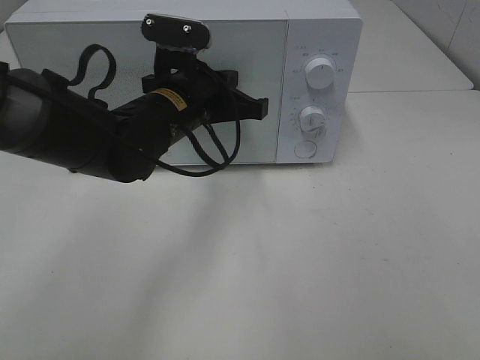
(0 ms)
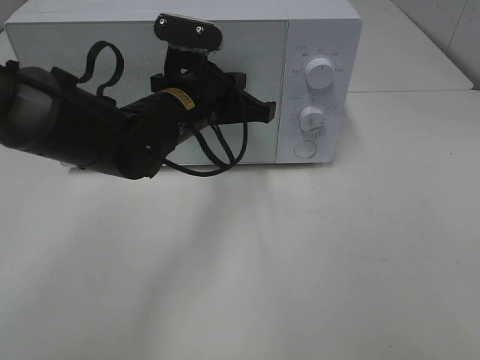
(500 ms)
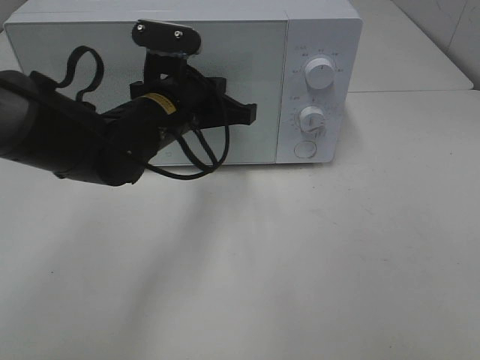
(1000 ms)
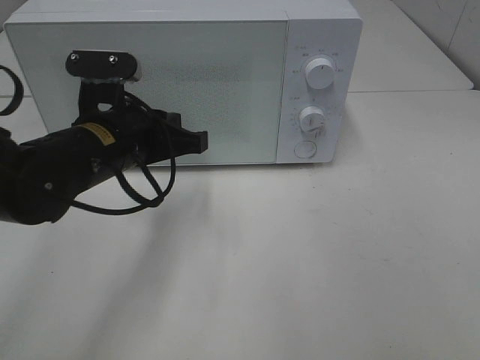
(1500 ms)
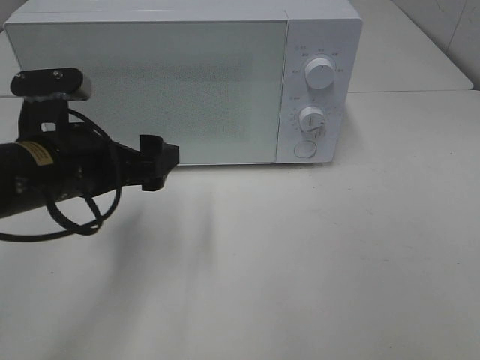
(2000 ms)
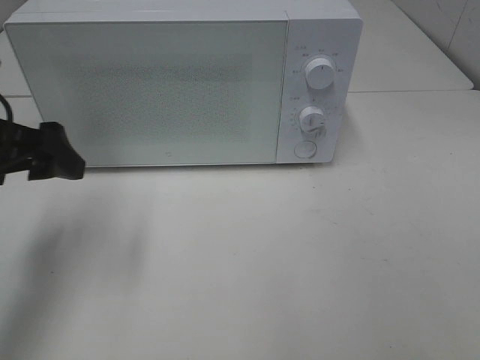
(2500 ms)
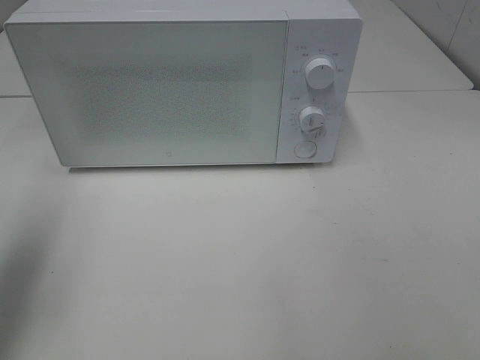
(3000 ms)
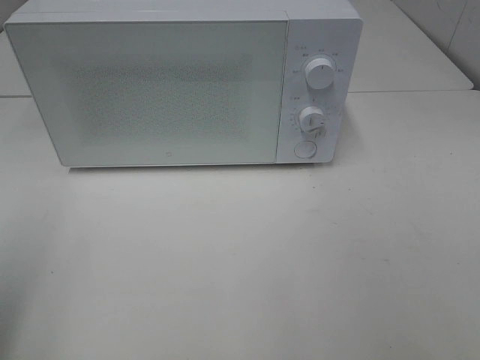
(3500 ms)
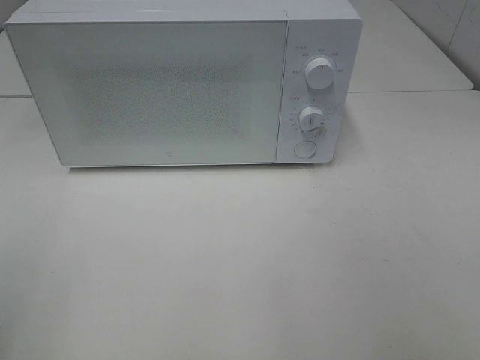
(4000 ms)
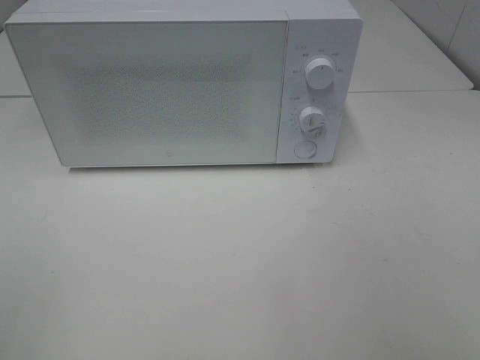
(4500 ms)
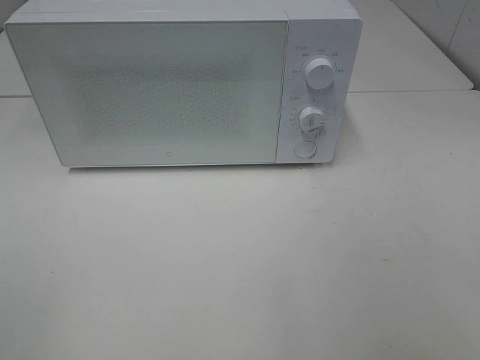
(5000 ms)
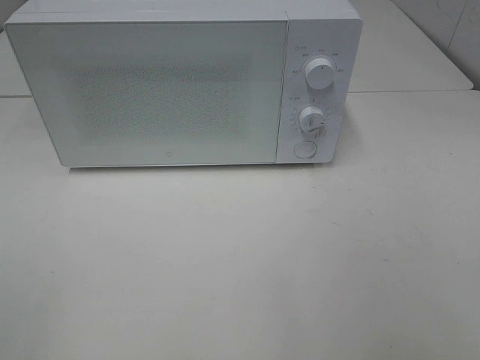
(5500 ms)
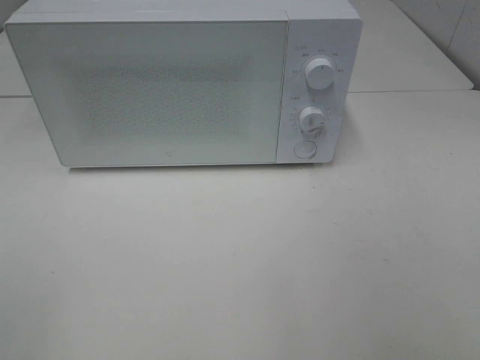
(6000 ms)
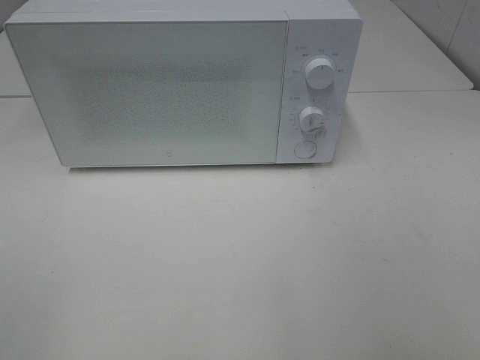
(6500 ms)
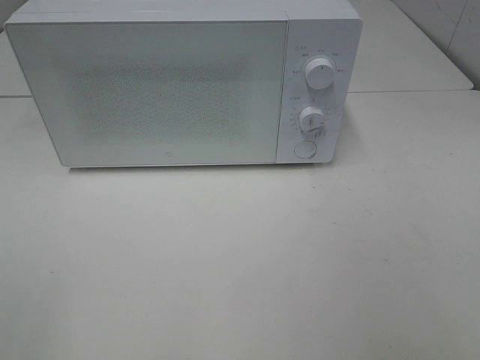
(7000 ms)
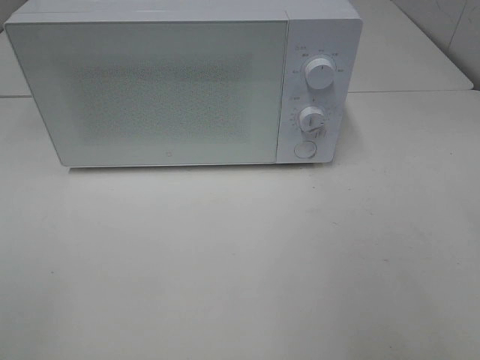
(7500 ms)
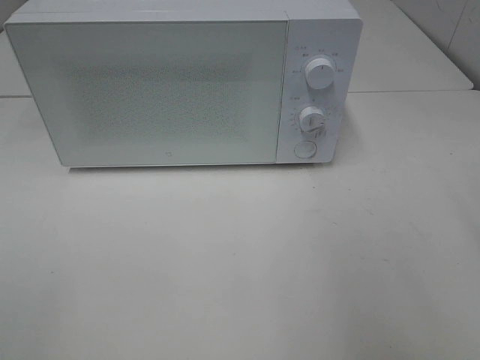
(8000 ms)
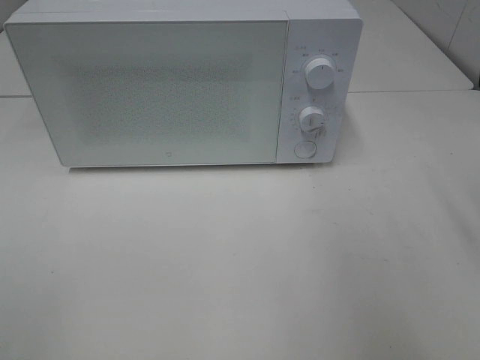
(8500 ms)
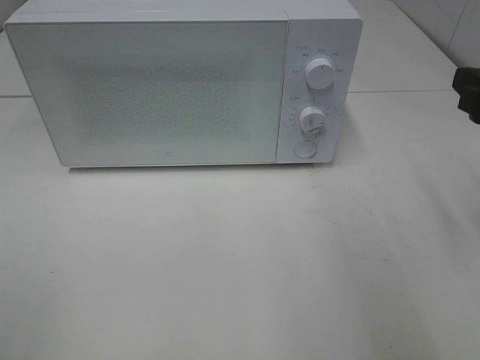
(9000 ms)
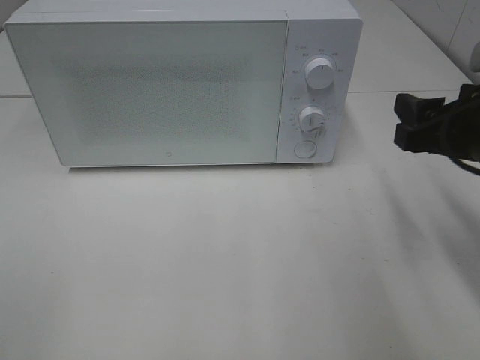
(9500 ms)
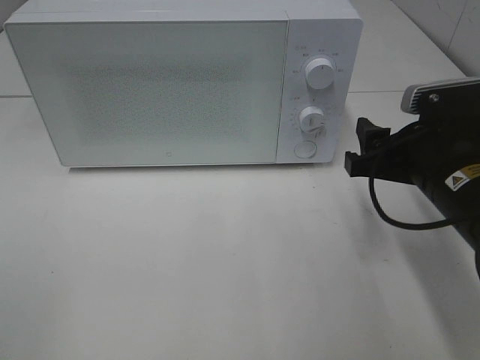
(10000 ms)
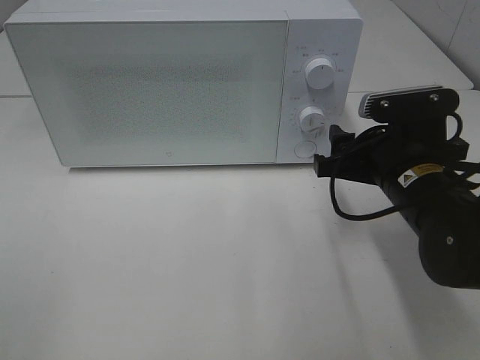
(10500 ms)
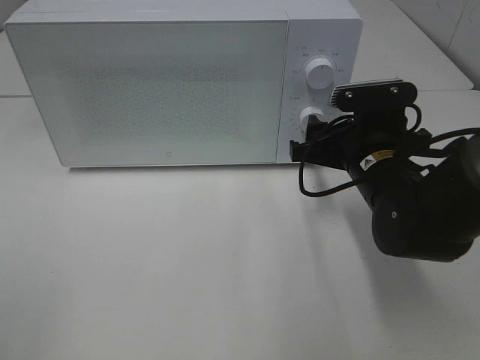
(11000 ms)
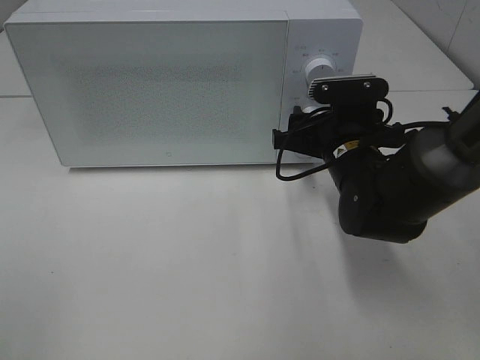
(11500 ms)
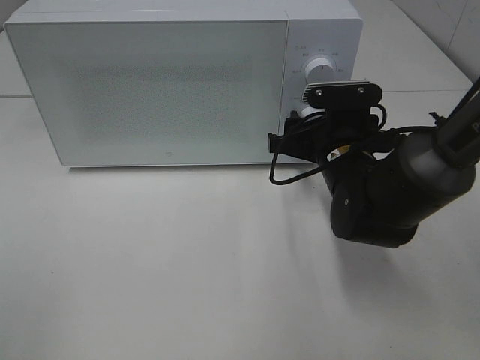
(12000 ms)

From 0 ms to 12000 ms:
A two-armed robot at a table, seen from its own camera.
Task of the whole recording: Heat Sandwich.
From 0 ms to 2000 ms: The left gripper moves to the left and backward, about 15 cm, and opens its fingers.
From 2000 ms to 4000 ms: The left gripper is displaced backward, to the left and upward by approximately 25 cm.
From 8000 ms to 10000 ms: The right gripper is displaced downward, forward and to the left by about 20 cm.
From 10000 ms to 12000 ms: The right gripper is displaced forward, to the left and downward by about 15 cm.

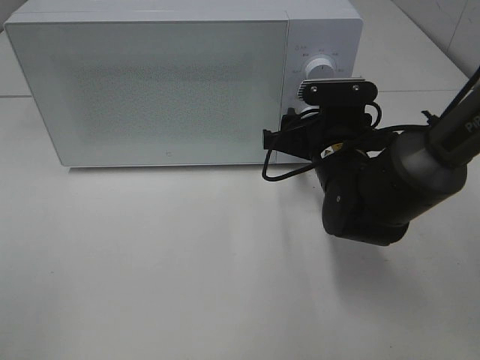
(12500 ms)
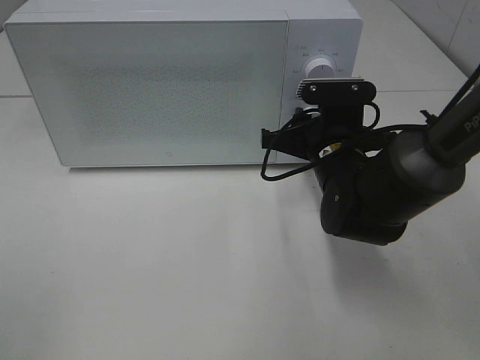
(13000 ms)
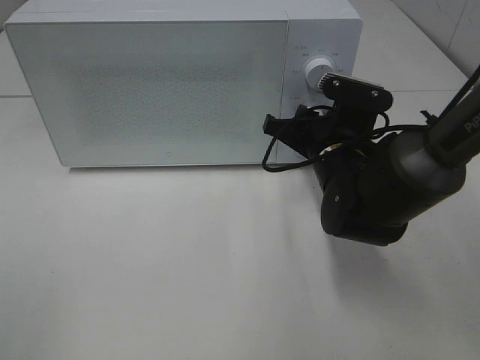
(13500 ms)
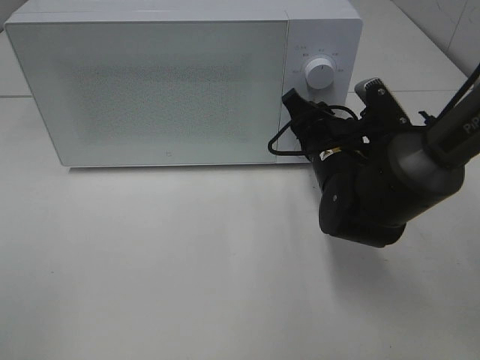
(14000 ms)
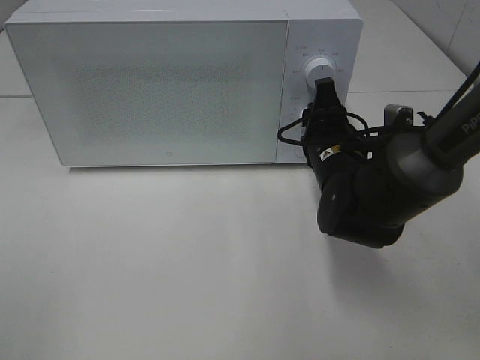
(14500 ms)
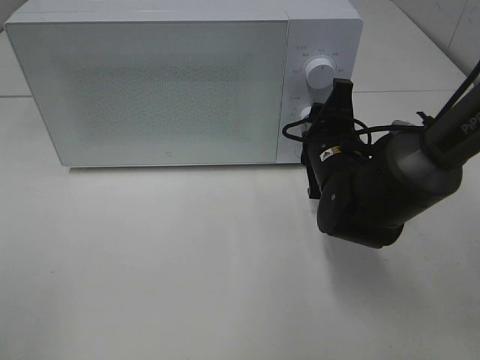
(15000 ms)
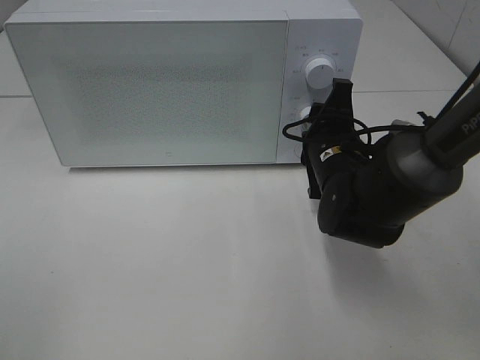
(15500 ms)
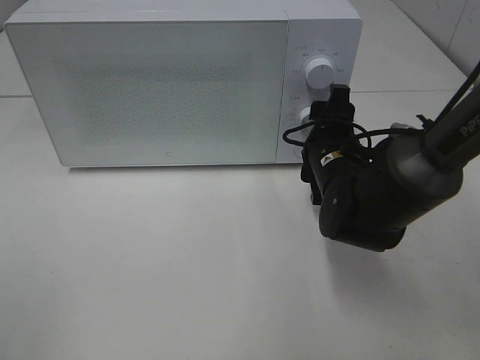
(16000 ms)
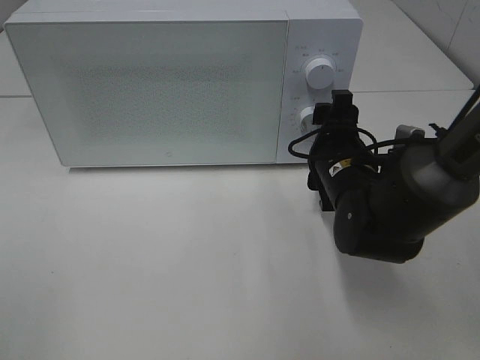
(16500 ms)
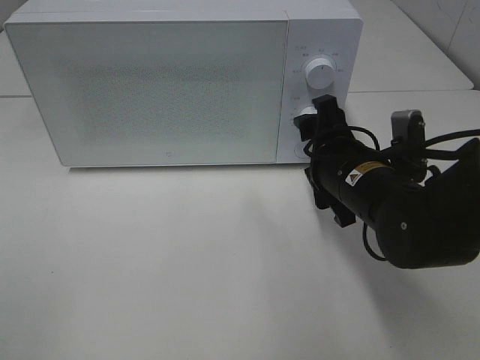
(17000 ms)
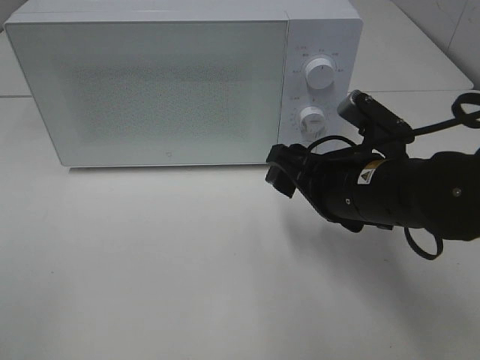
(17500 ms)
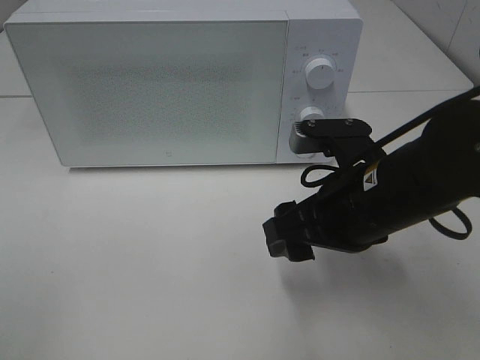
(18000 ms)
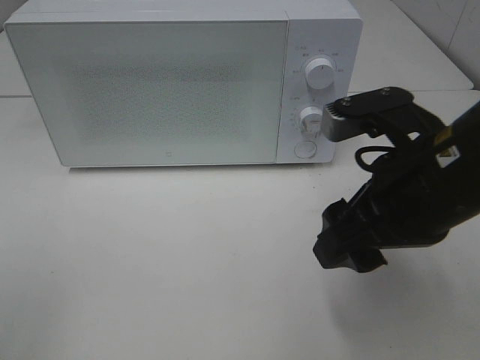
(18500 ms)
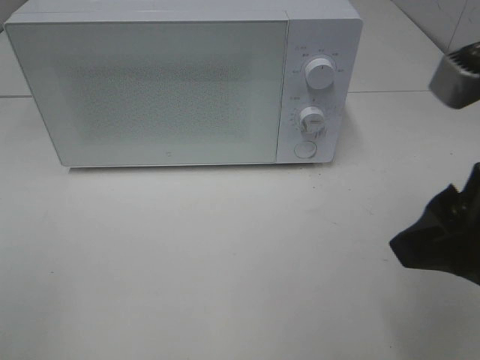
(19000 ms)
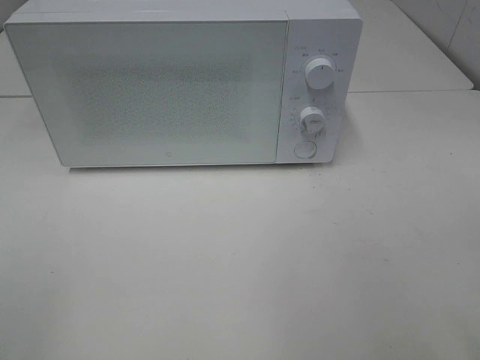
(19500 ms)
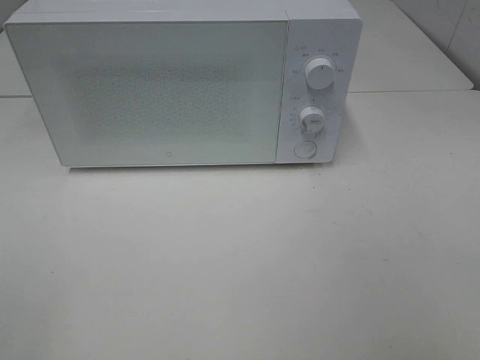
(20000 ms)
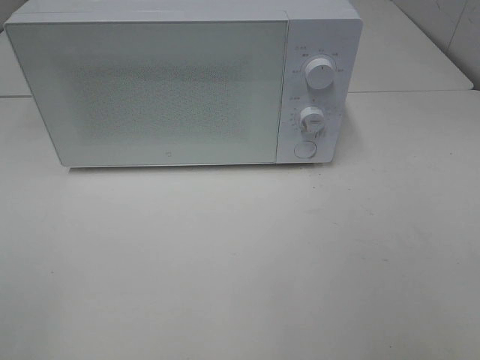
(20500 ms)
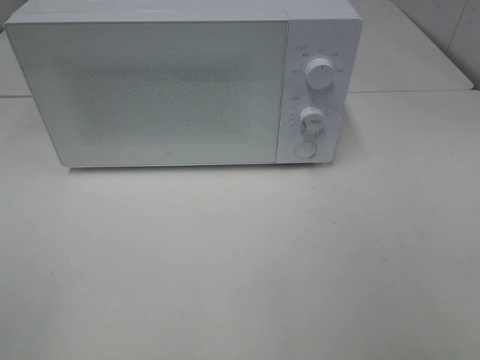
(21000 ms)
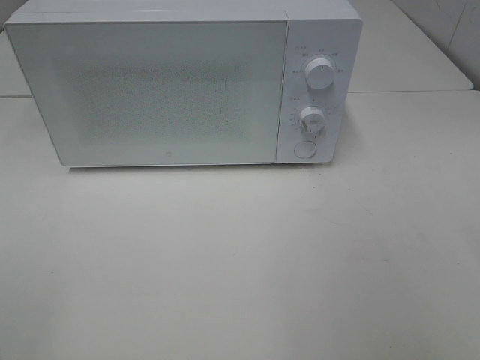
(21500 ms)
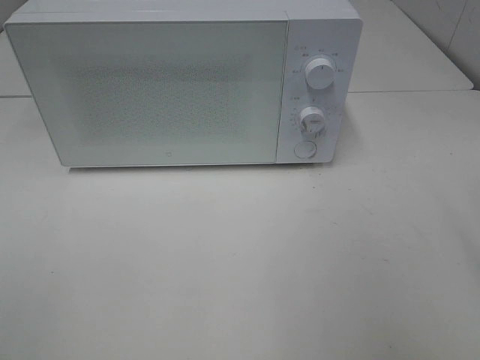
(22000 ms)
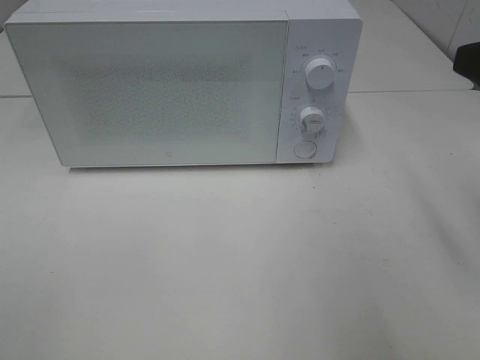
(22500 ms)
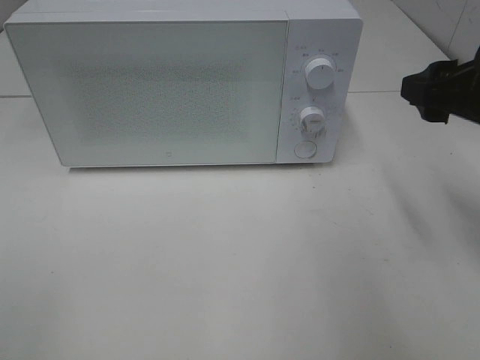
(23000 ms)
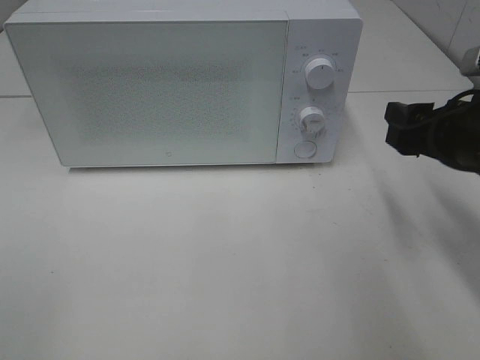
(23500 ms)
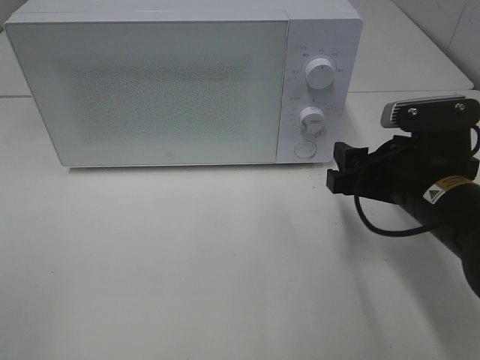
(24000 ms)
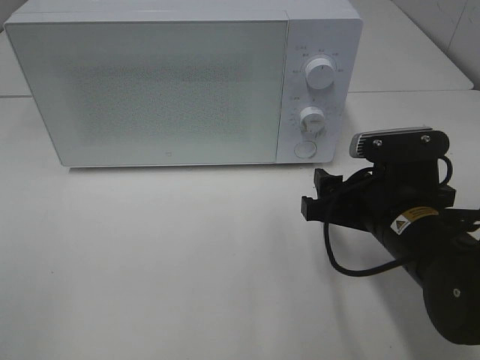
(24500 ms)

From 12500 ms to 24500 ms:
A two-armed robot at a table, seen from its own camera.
Task of the whole recording: Heat Sandwich.
Step, from 12500 ms to 16500 ms: Right hand: twist timer button.
From 14500 ms to 16500 ms: The right gripper opens.
From 16500 ms to 18500 ms: The right gripper travels upward and backward by some 15 cm.
From 18500 ms to 20500 ms: The right gripper heads backward and to the right, covering approximately 25 cm.
From 22500 ms to 24500 ms: The right gripper moves downward and to the left, some 20 cm.

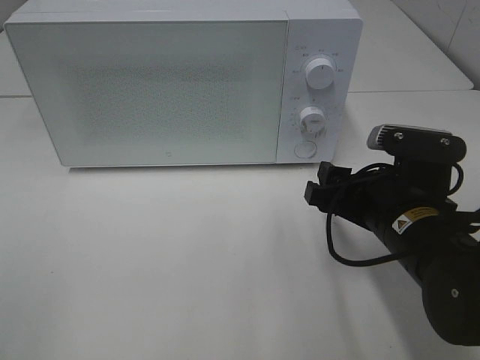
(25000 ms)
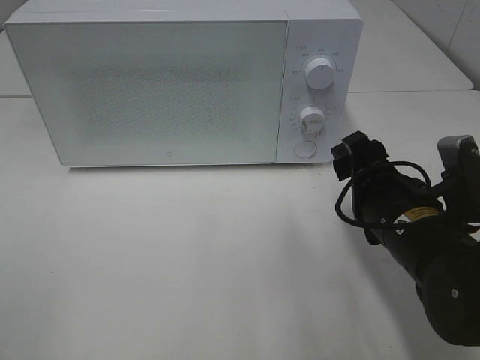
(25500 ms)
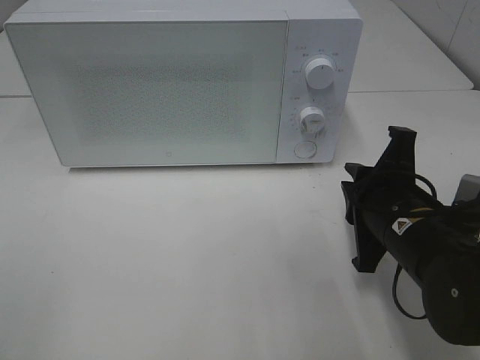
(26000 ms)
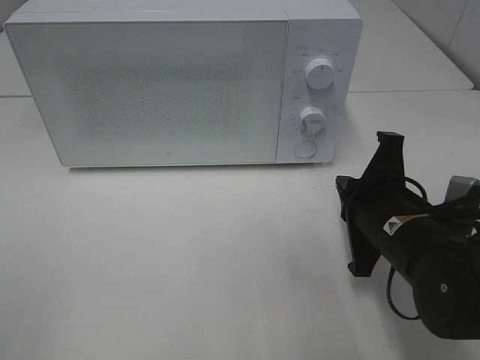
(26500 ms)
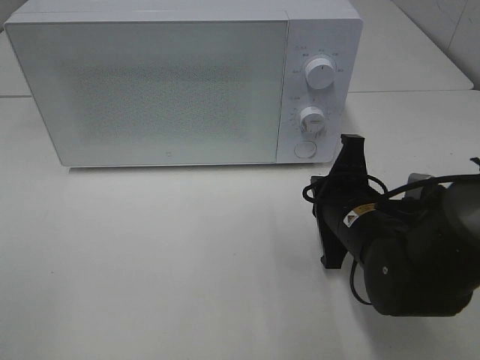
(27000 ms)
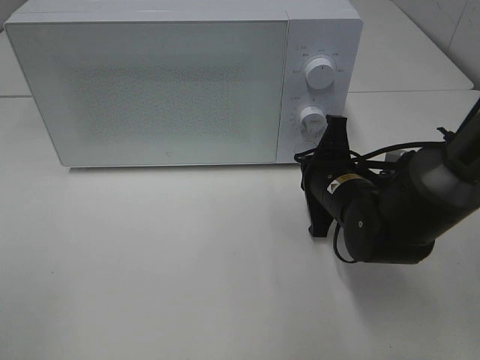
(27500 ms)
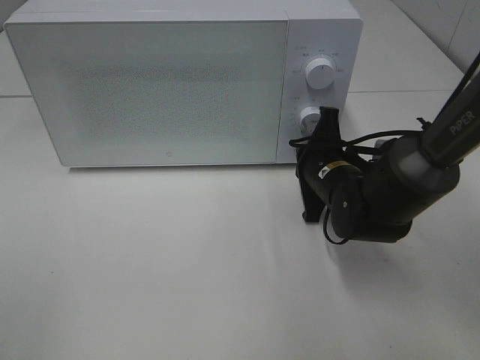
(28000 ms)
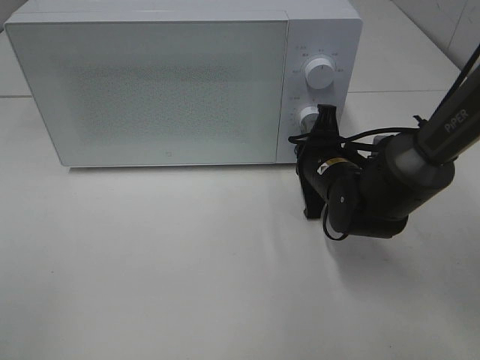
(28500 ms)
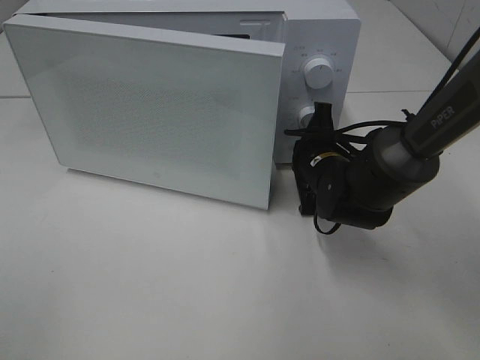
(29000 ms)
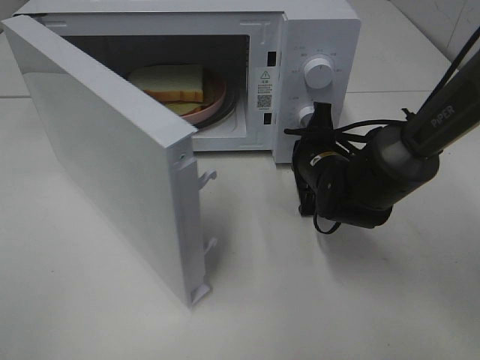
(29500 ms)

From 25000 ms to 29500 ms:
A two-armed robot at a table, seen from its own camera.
Task of the whole recording: Heat Sandwich.
From 25000 ms to 27000 ms: The right gripper shifts by roughly 5 cm, and closes.
From 27000 ms to 29500 ms: The right gripper is displaced forward by some 10 cm.
